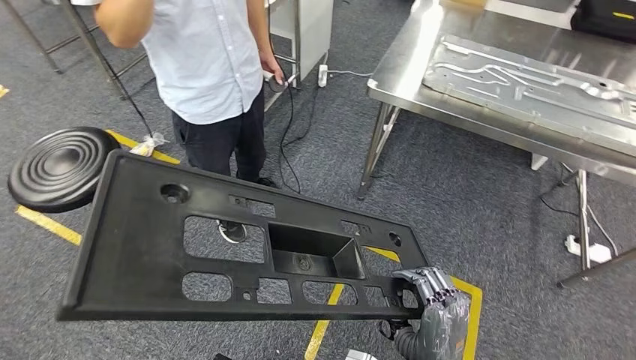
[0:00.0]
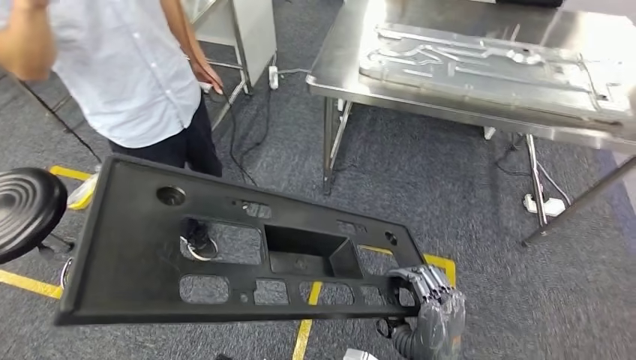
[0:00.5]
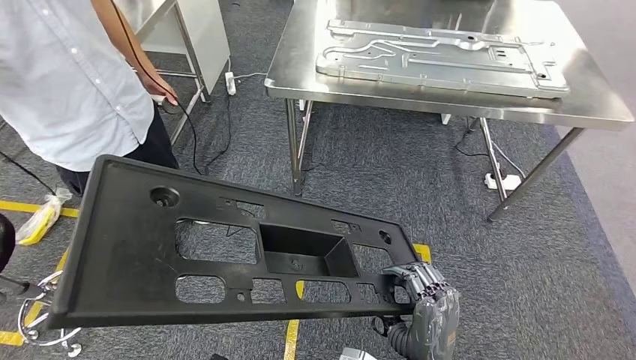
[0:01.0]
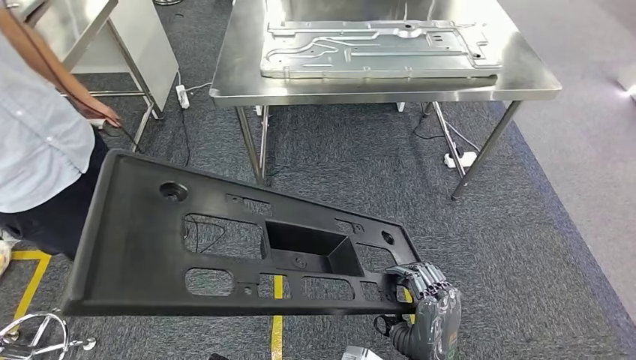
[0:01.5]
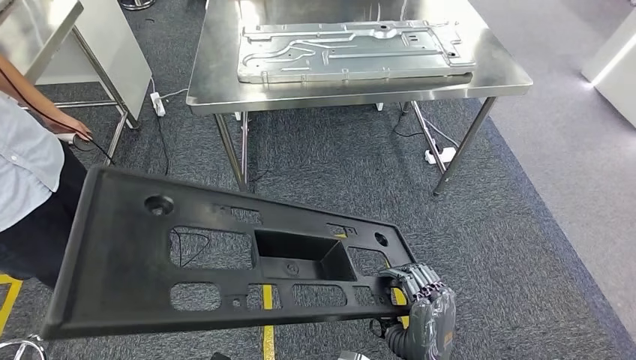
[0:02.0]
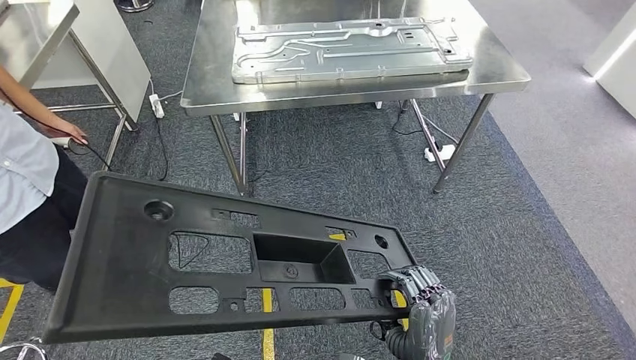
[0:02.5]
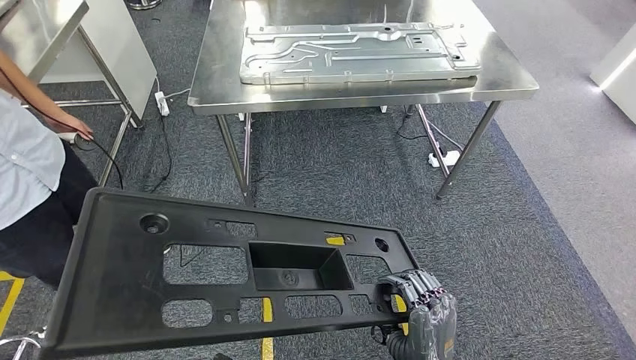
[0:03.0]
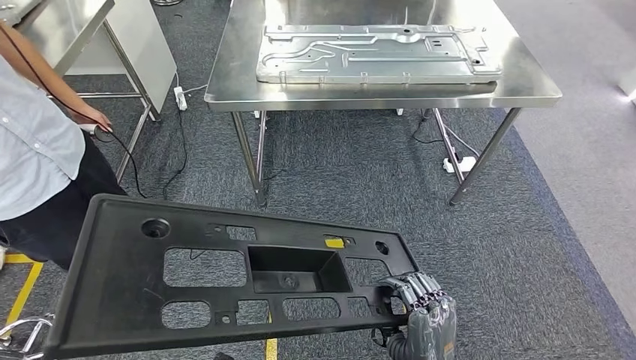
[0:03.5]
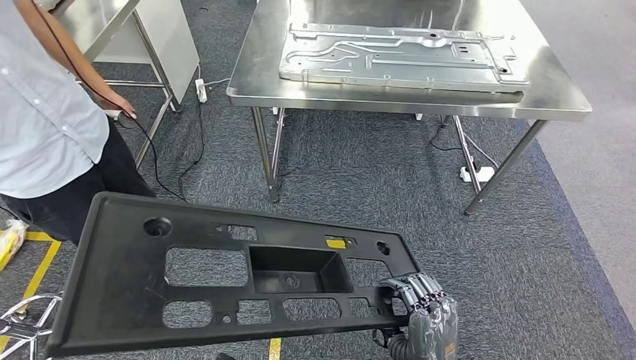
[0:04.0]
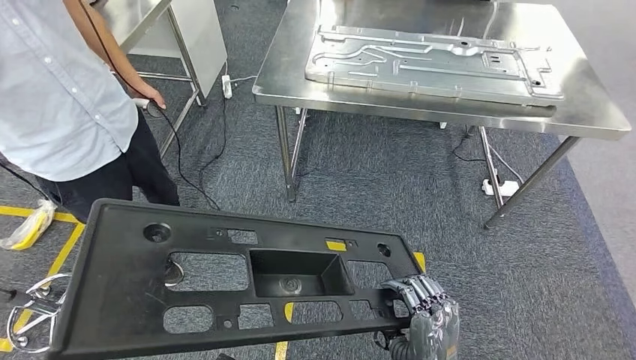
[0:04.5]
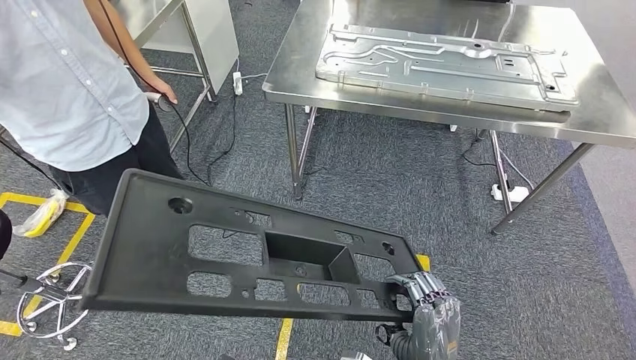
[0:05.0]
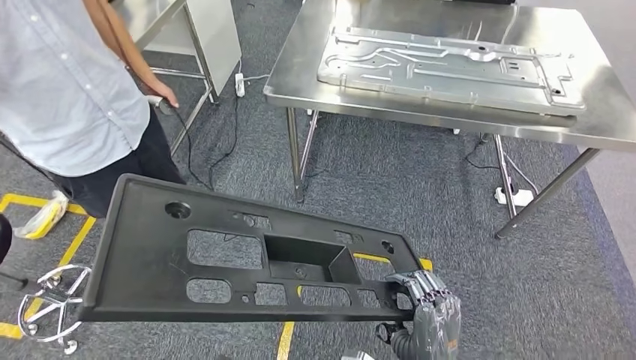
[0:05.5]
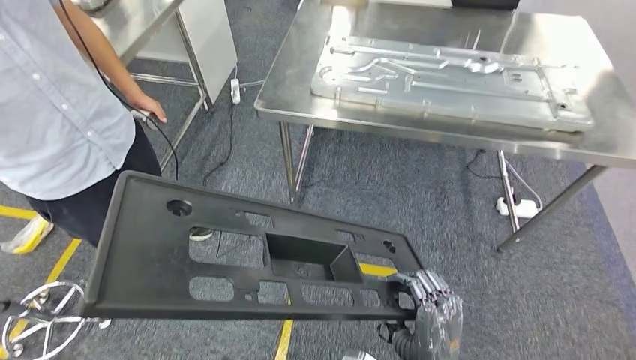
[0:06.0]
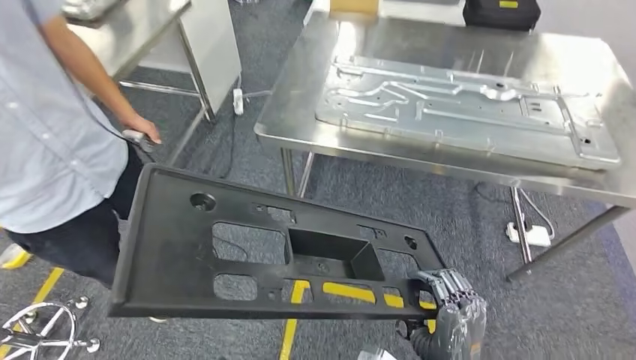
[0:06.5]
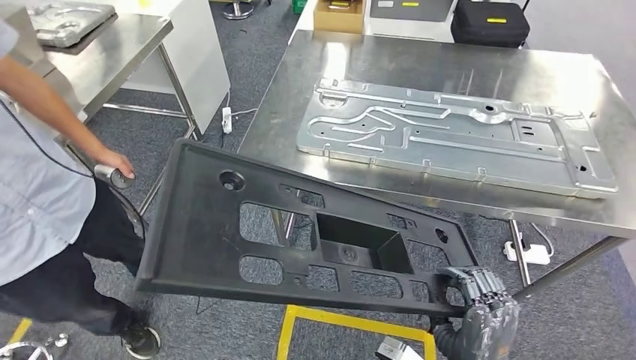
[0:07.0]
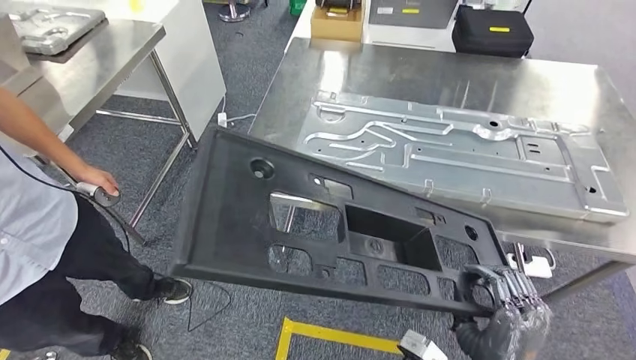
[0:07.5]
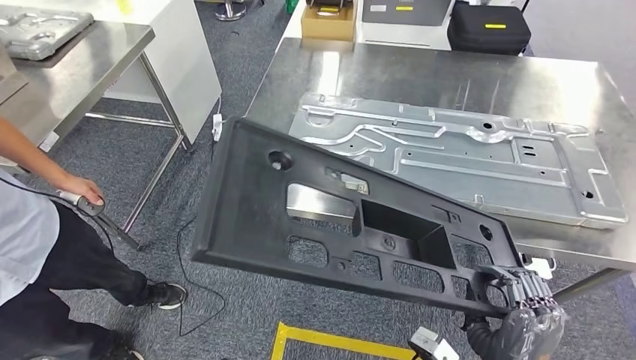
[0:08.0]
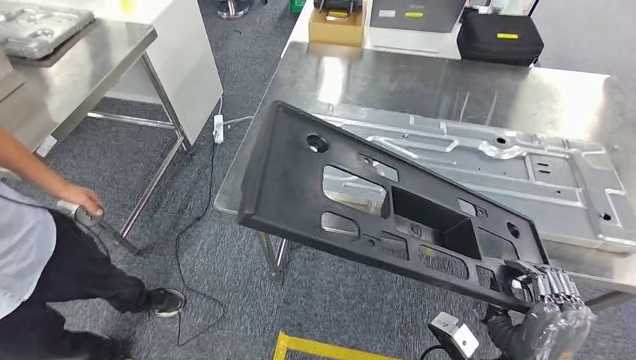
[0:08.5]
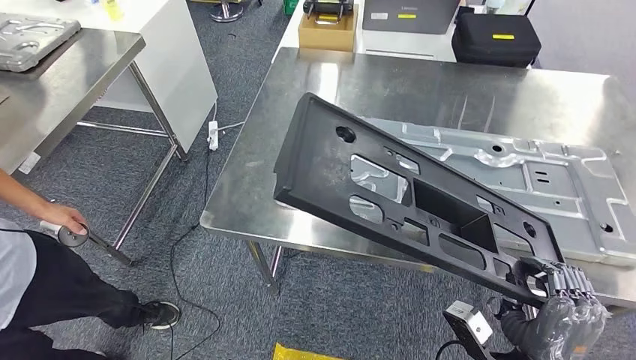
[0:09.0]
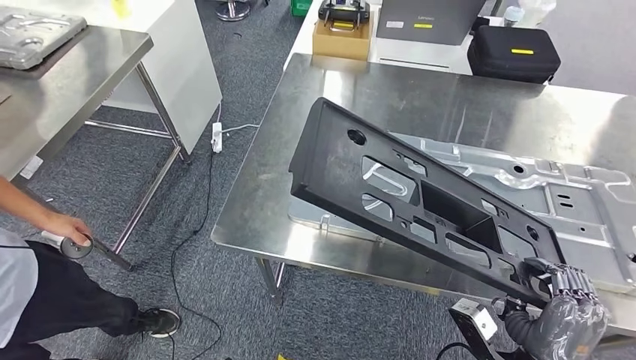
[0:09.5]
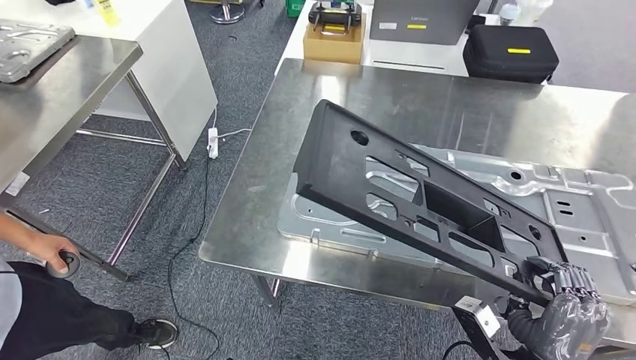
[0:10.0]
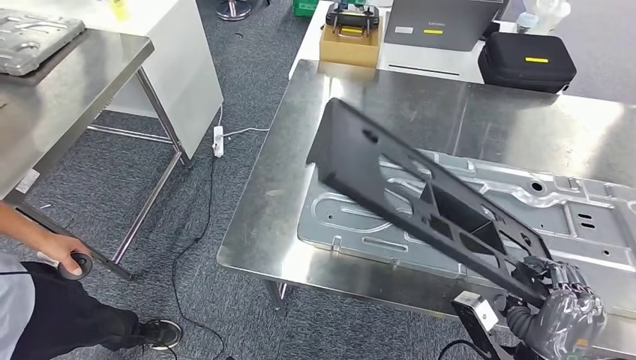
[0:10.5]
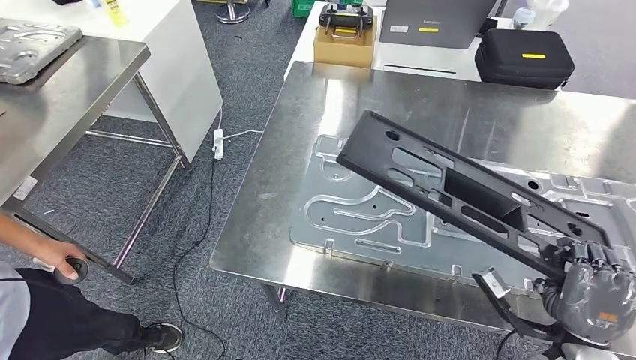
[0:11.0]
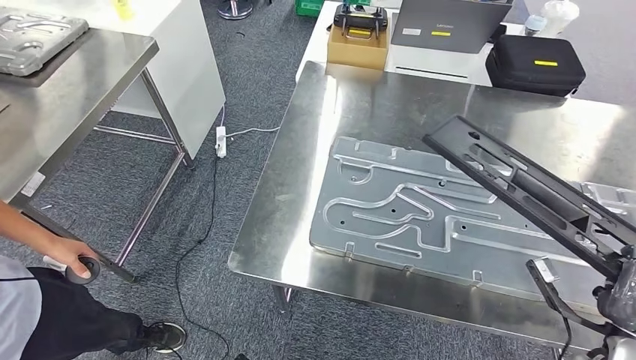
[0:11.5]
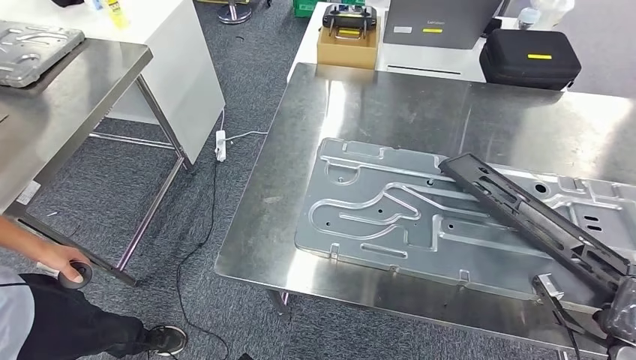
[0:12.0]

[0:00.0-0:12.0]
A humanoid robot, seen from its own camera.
Step, 0:00.0 to 0:07.0: Move the large material to the workbench.

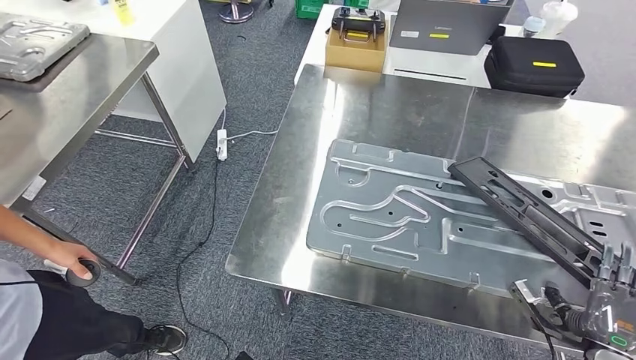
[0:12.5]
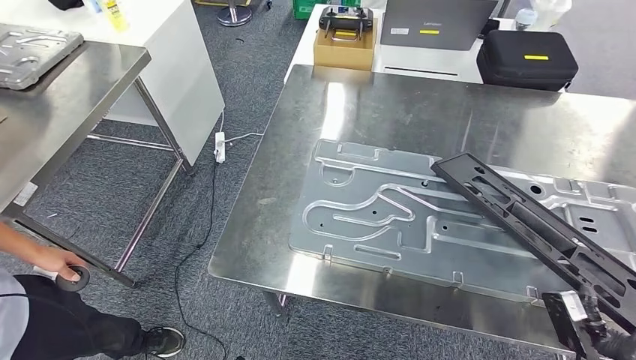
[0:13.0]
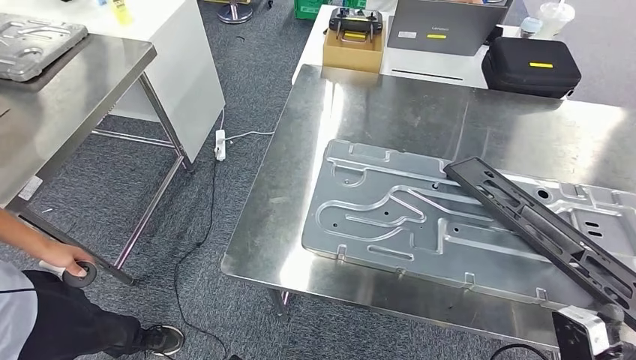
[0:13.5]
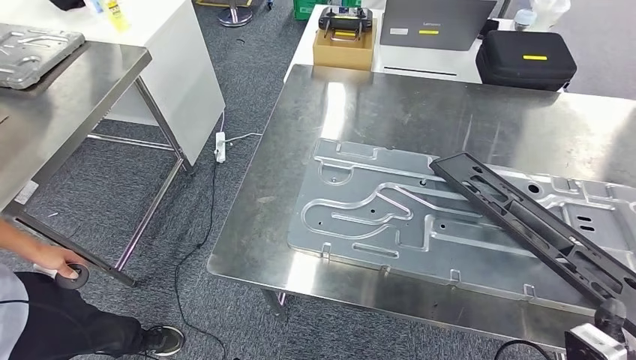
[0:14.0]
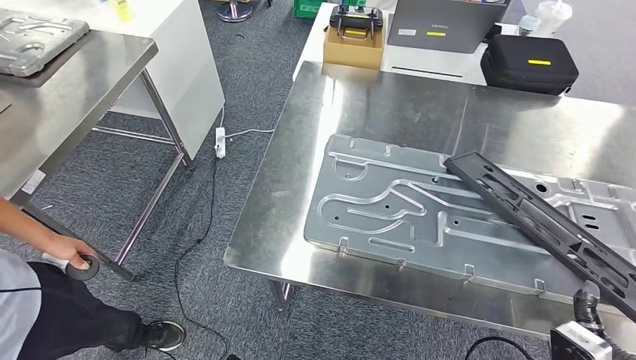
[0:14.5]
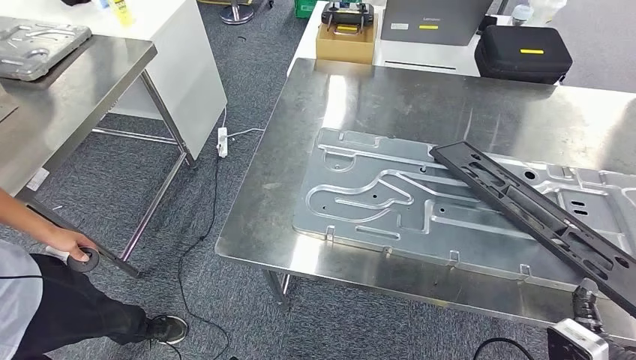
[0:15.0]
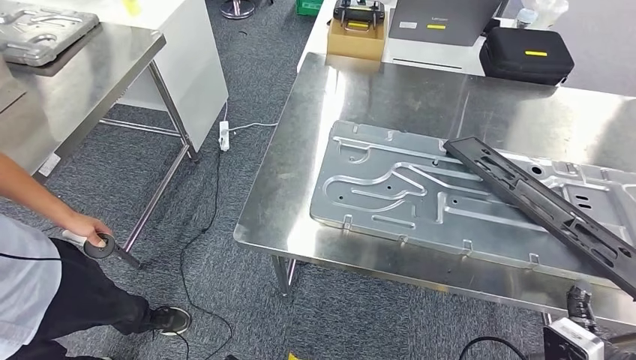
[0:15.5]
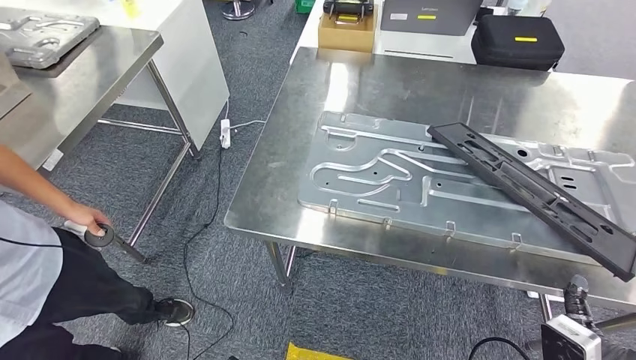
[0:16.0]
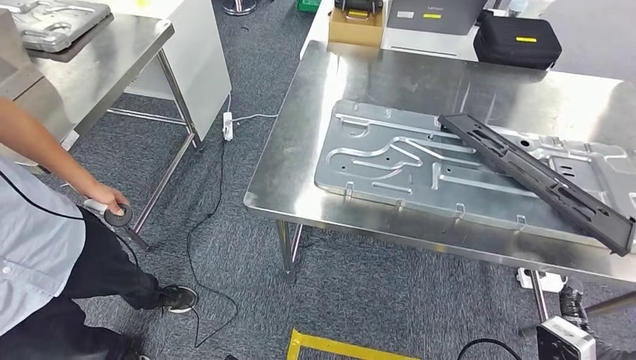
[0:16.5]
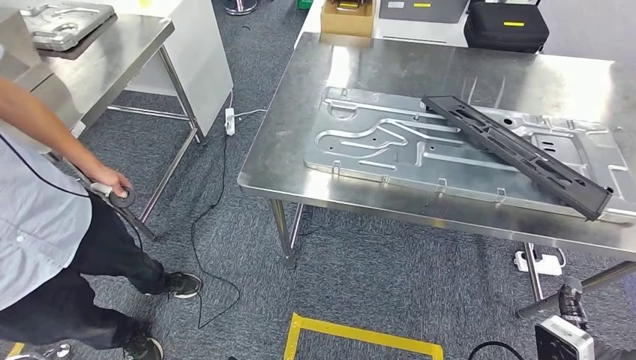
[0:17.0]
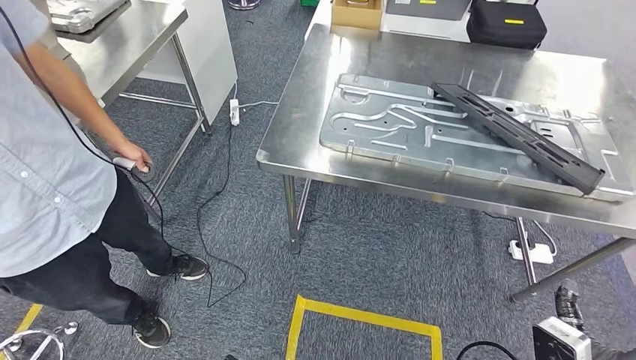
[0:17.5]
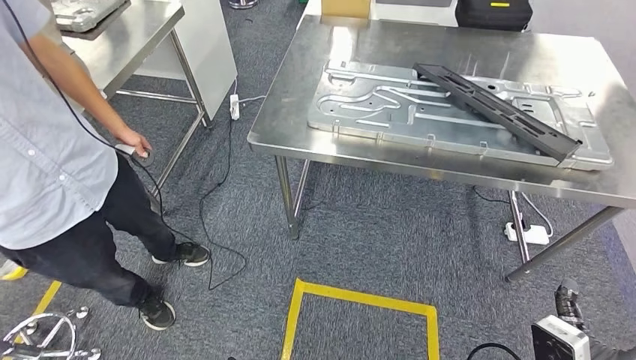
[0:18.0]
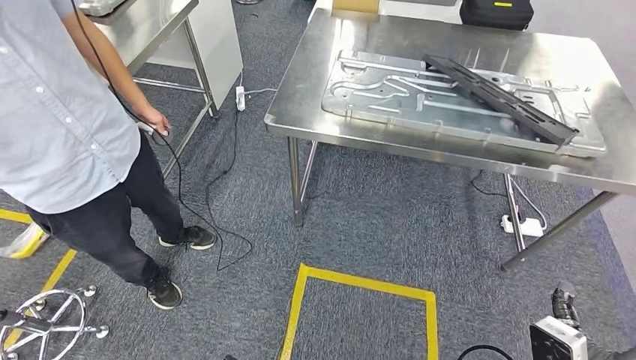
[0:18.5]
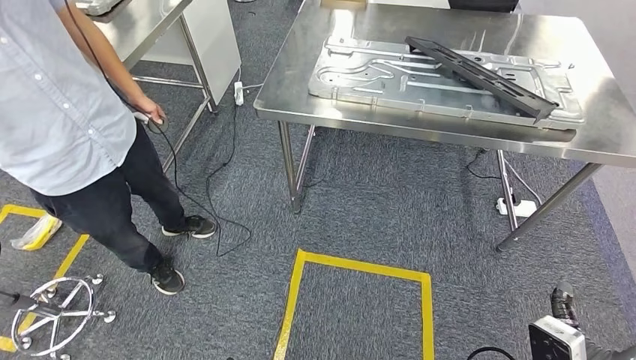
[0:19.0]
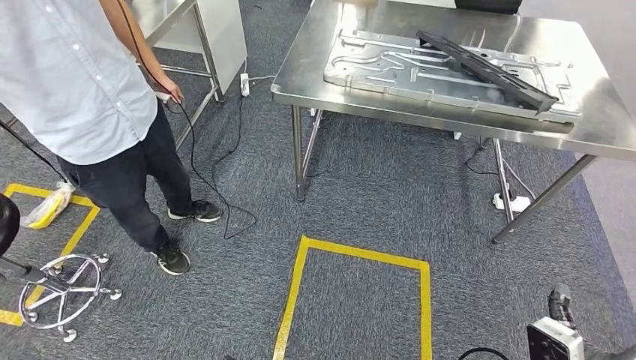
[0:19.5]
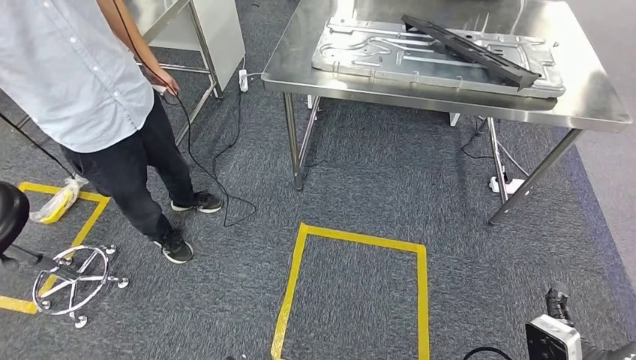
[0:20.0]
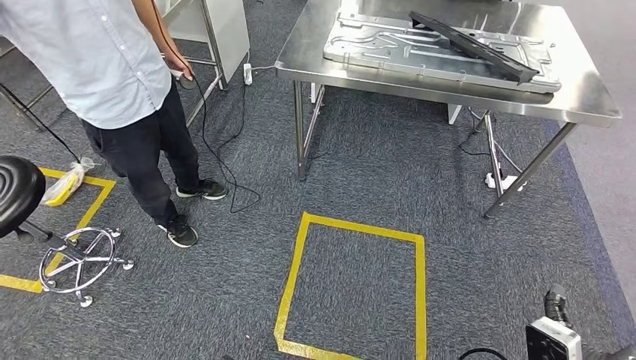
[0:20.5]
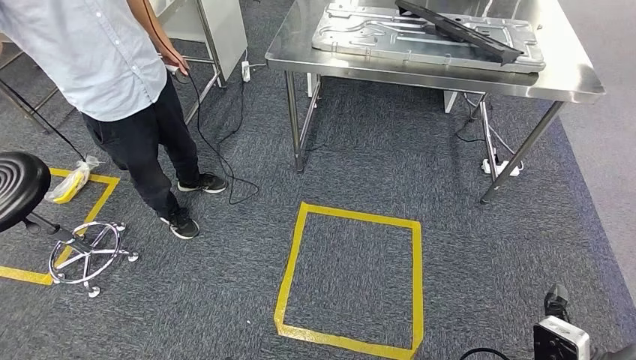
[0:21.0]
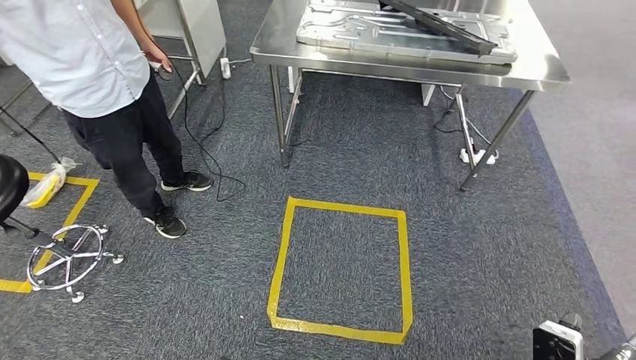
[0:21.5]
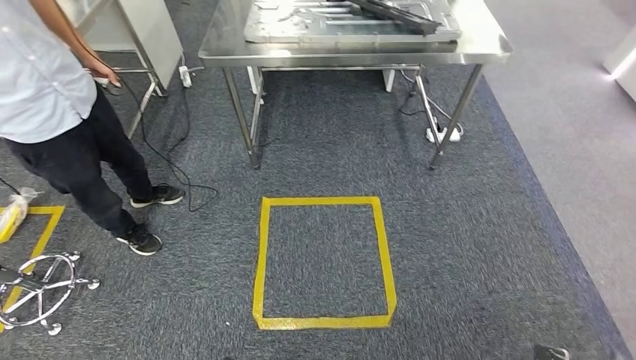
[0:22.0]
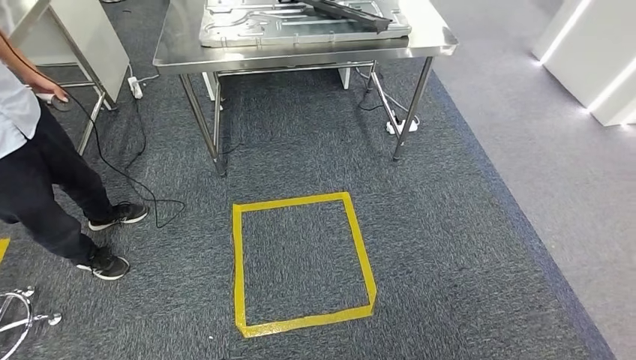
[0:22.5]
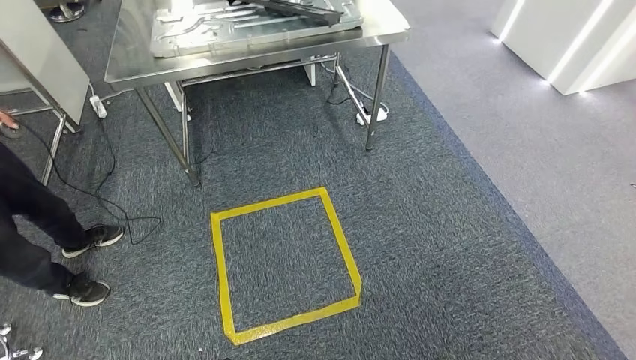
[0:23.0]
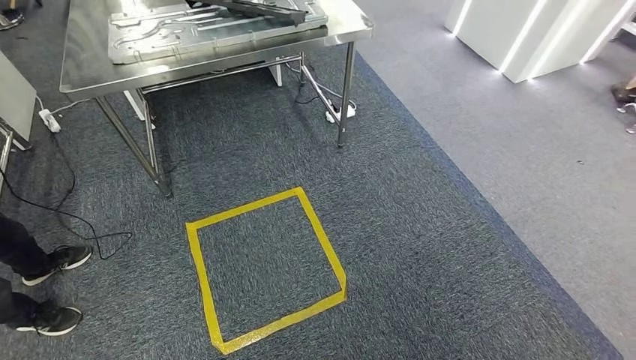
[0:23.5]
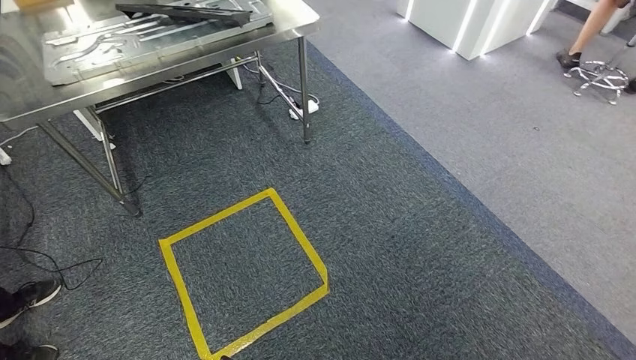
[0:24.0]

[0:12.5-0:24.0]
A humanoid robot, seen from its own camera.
Step, 0:12.5 to 0:18.0: Insert the large material into the corresponding slot on the workbench.
